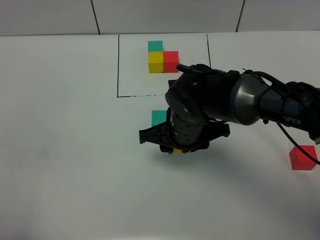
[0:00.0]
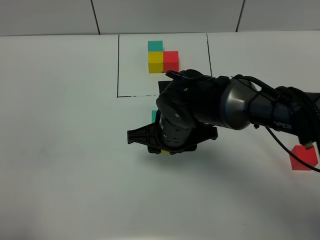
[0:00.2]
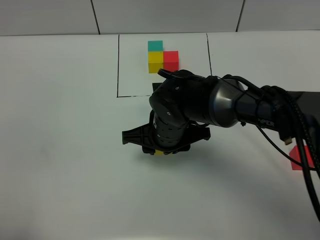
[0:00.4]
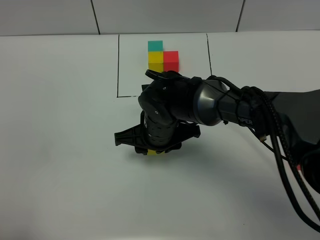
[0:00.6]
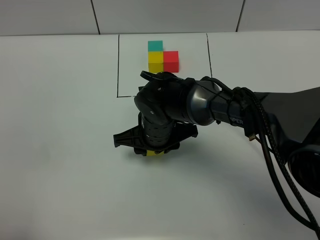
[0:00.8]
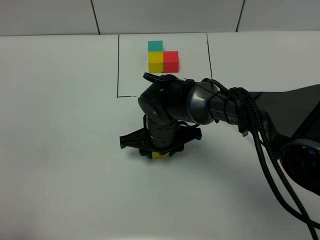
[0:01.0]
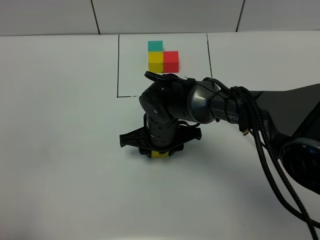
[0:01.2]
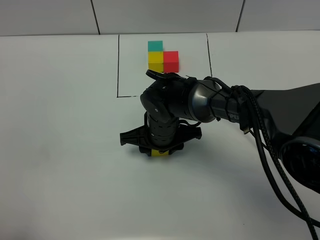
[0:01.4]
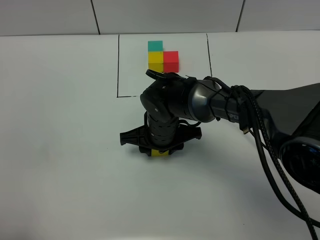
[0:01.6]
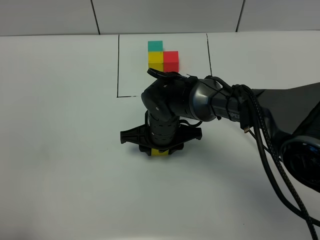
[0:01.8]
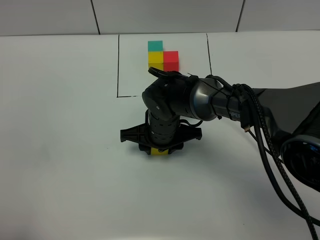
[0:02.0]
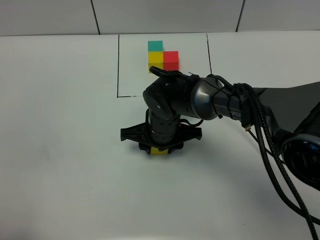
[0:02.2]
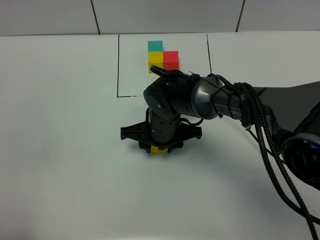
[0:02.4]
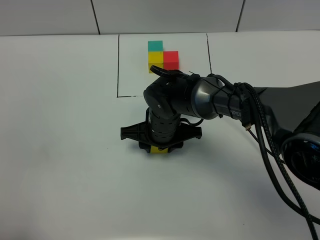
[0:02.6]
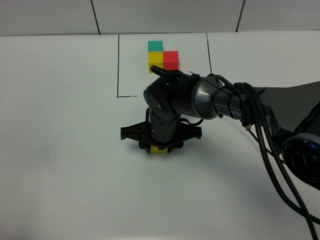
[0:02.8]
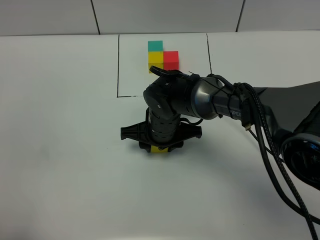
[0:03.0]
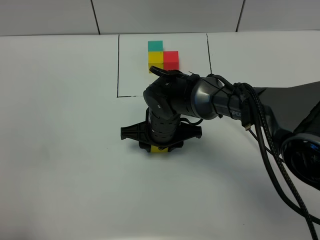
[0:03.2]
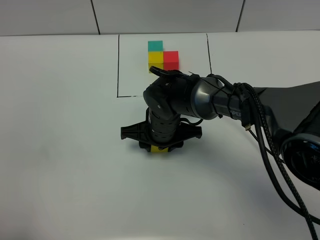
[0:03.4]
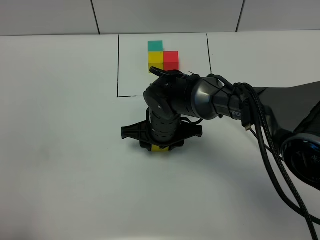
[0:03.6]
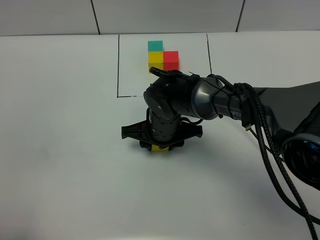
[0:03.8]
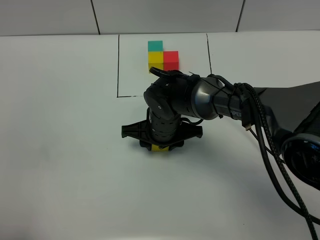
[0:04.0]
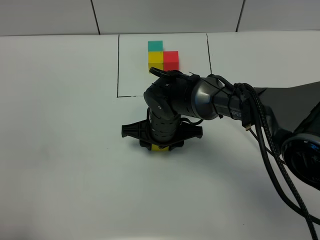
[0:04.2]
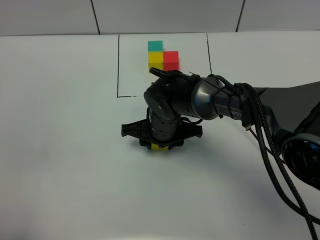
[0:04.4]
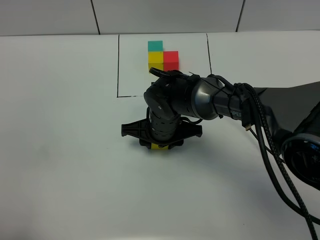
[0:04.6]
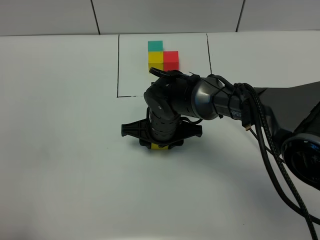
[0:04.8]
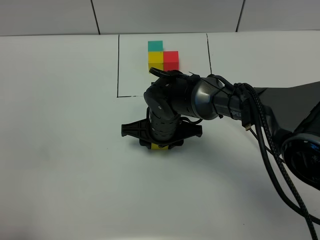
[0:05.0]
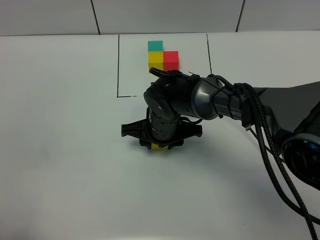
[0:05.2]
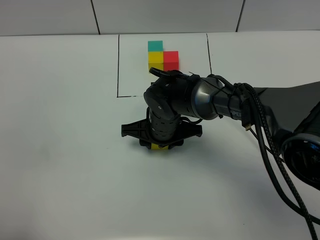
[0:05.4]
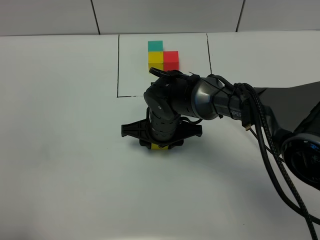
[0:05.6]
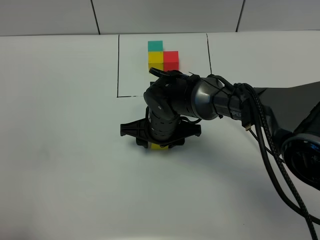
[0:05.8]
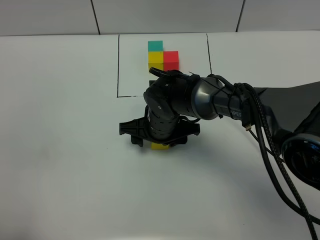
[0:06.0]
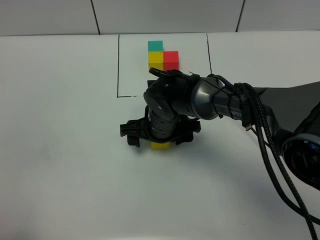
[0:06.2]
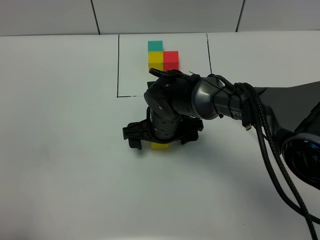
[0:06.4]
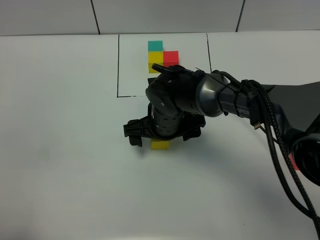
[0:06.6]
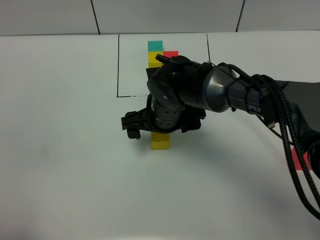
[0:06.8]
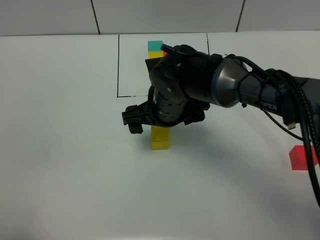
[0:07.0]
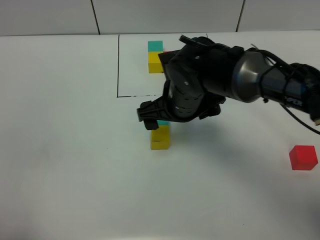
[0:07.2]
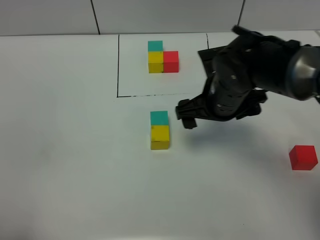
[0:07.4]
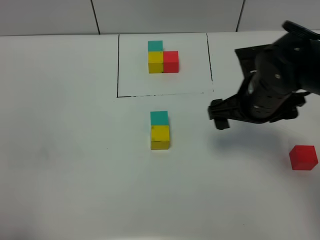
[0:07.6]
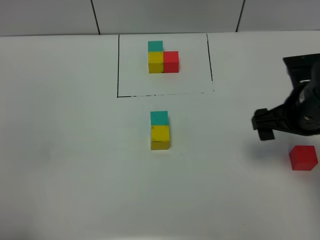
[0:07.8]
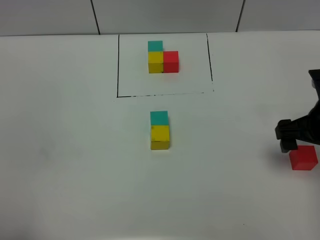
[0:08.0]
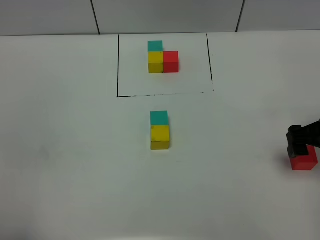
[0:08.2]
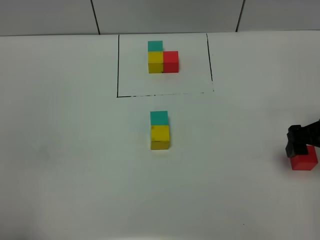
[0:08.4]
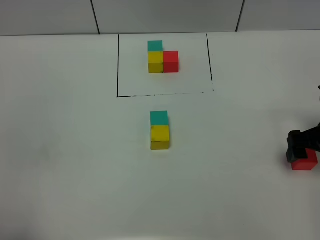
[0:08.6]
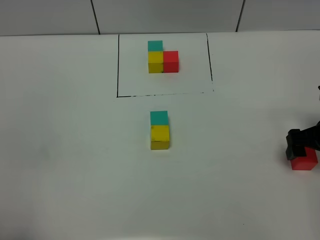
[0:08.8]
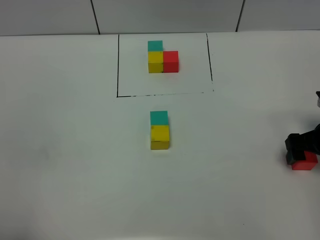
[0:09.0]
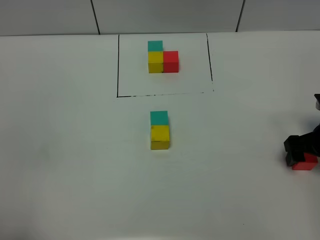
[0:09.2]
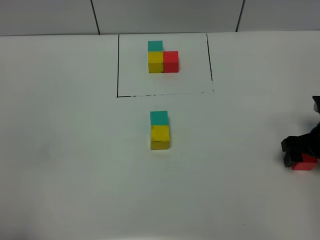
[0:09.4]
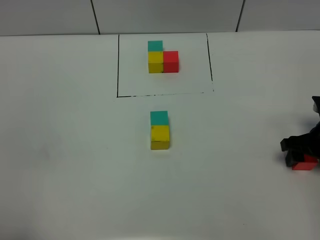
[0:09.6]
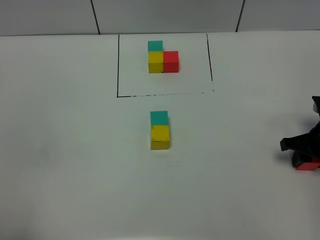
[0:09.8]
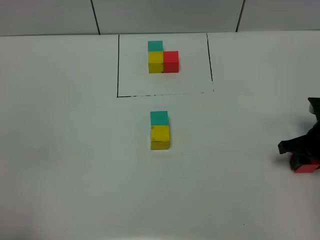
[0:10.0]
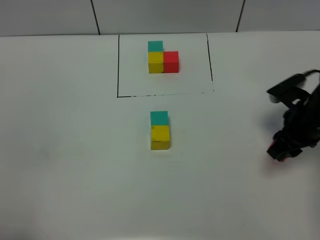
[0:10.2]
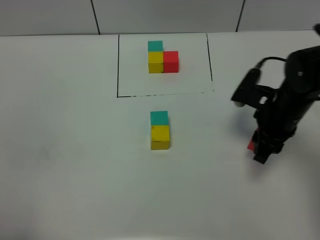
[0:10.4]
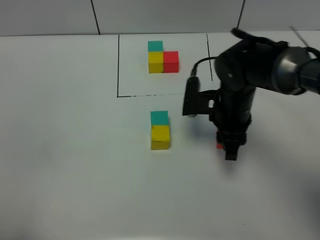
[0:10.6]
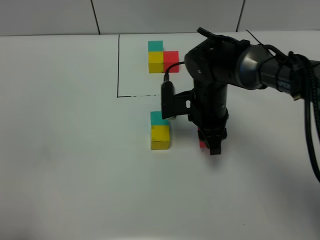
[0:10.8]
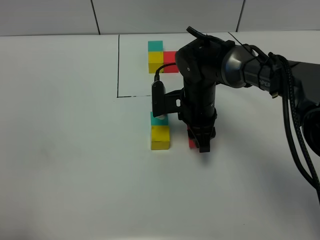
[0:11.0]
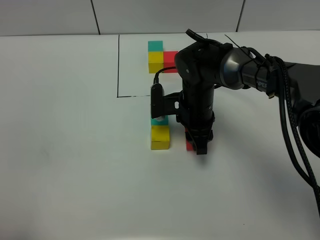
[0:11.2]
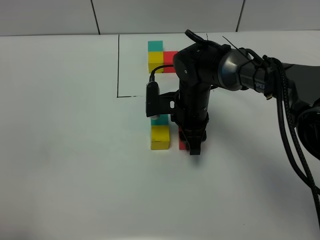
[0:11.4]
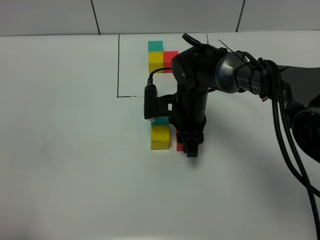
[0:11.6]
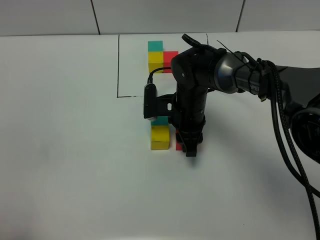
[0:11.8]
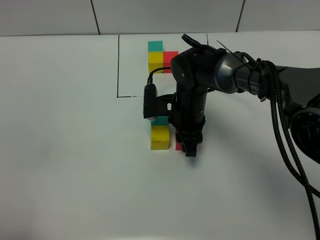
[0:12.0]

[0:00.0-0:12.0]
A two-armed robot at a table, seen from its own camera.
Task of the whole recording: According to the building block template in front, assemble the scattered blocks together.
Step, 0:00.0 to 0:06.0: Put the yellow build block on the behind of the green build block.
0:00.0 to 0:01.6: The right gripper shifts about 5 cm downward.
0:01.6 to 0:03.0: The two grippers keep their place.
0:03.0 to 0:04.4: Neither gripper changes place.
0:04.4 to 0:06.0: The right gripper opens its fingers.
0:06.0 to 0:07.6: The right gripper moves to the right and upward, roughly 20 cm, and opens.
0:07.6 to 0:09.0: The right gripper is displaced to the right and downward by approximately 15 cm.
0:09.0 to 0:10.4: The right gripper shifts roughly 15 cm to the left, and closes.
0:10.4 to 0:12.0: The right gripper travels to the left and downward by some 15 cm.

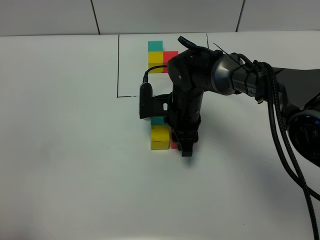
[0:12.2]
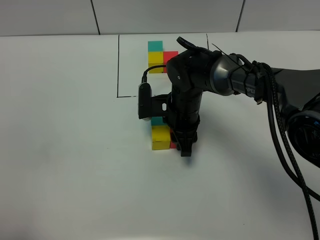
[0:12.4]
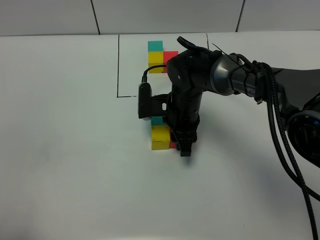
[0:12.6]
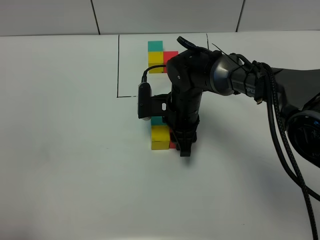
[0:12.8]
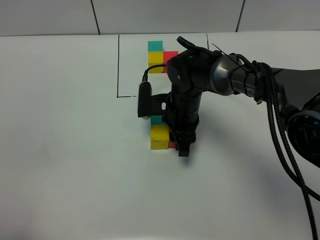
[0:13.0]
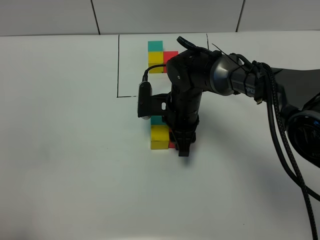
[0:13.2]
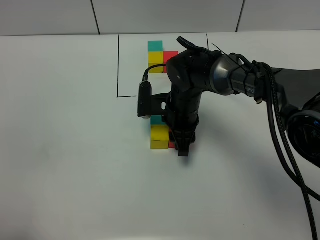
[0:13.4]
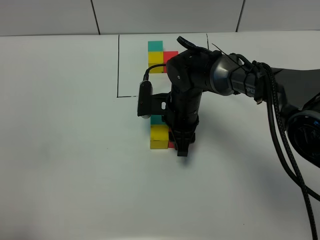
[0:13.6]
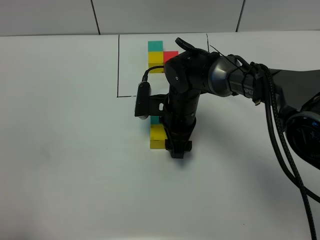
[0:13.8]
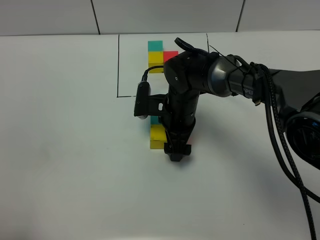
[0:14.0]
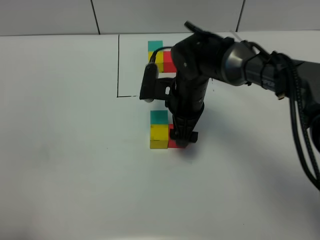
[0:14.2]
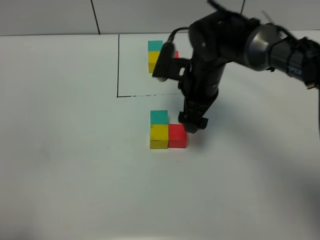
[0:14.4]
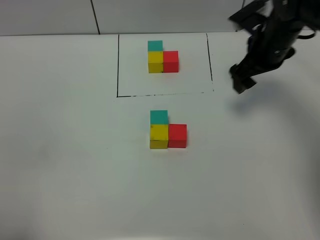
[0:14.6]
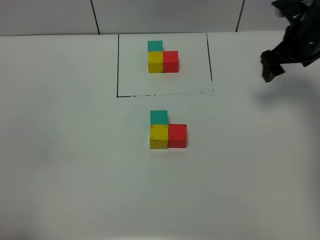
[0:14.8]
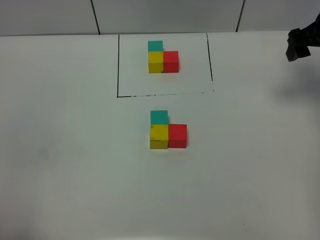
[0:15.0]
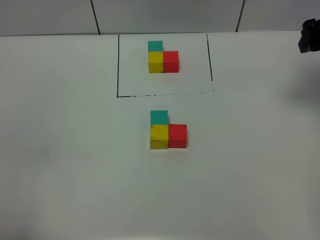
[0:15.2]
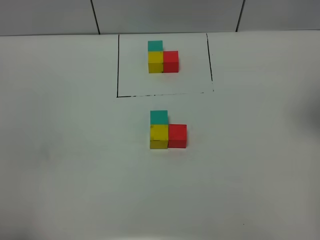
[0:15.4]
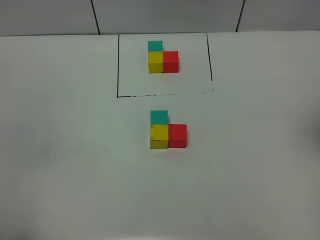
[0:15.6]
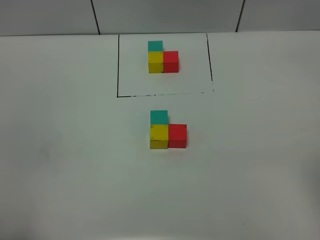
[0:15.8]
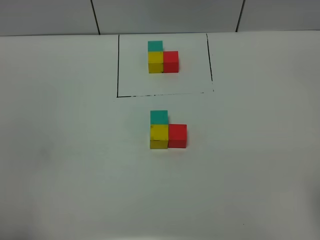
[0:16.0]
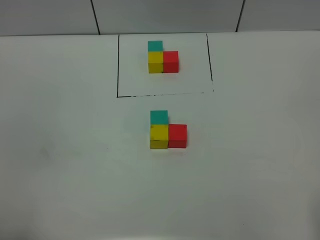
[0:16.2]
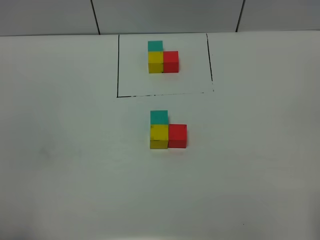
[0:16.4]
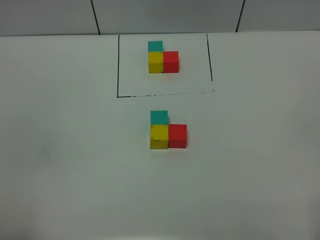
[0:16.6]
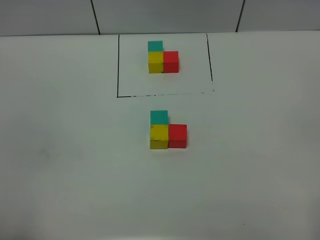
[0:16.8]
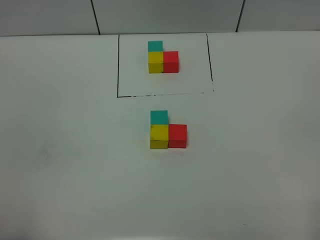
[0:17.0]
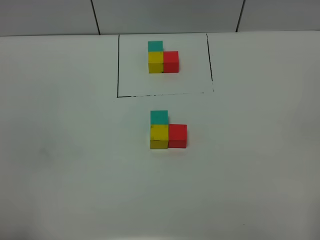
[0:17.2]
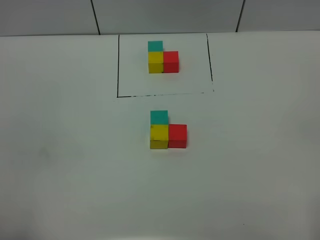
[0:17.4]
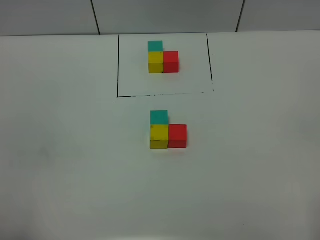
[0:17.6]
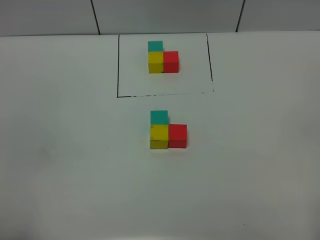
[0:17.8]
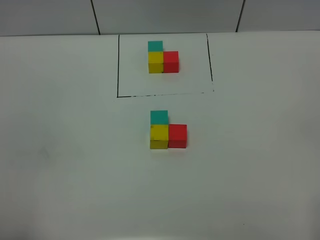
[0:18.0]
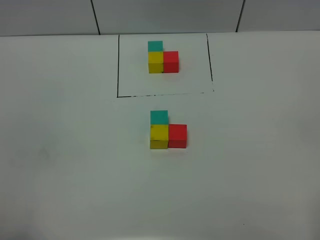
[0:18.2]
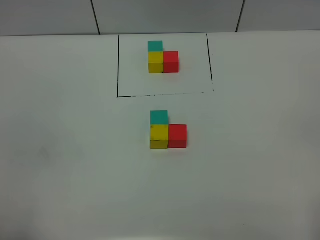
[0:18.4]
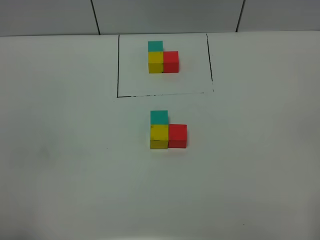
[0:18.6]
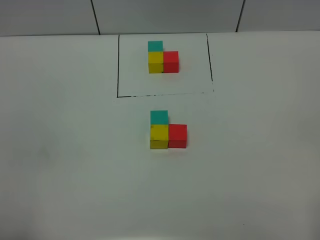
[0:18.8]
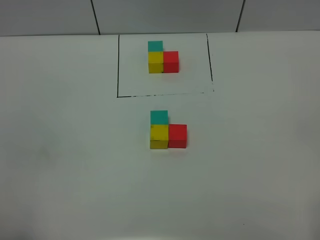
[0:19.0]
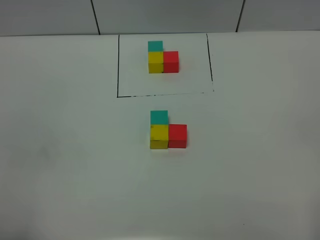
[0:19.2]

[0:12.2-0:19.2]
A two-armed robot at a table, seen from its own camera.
Task of the whole recording: According to the building block template in front, assemble the scattered blocks together.
0:12.2 to 0:13.6: Both grippers stay about where they are.
0:13.6 to 0:15.0: The right gripper heads to the right and upward, covering about 30 cm, and opens up.
0:15.0 to 0:16.4: The right gripper travels backward by some 40 cm.
0:17.8 to 0:19.2: Both grippers stay put.

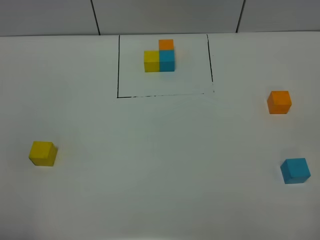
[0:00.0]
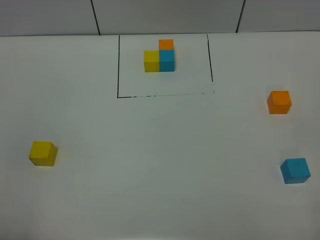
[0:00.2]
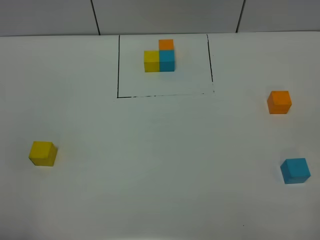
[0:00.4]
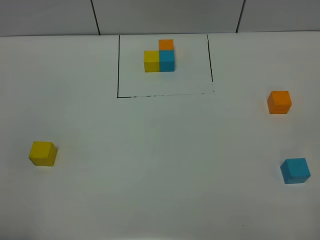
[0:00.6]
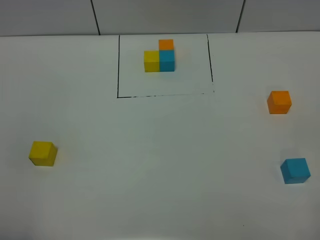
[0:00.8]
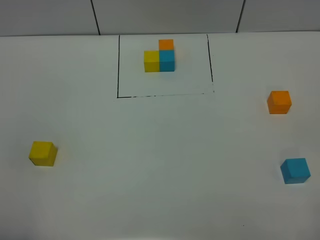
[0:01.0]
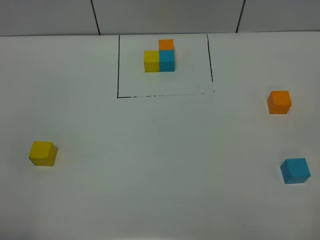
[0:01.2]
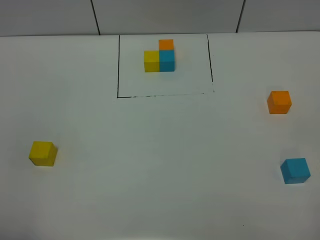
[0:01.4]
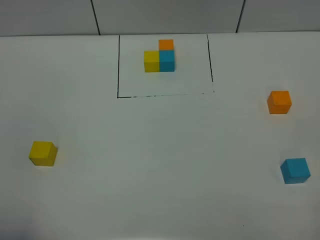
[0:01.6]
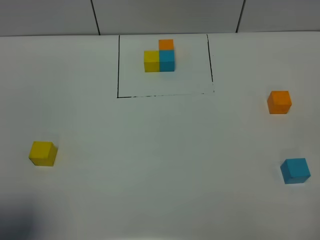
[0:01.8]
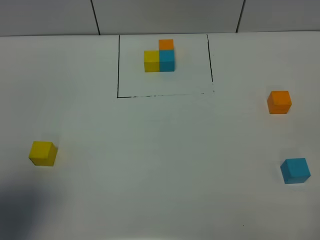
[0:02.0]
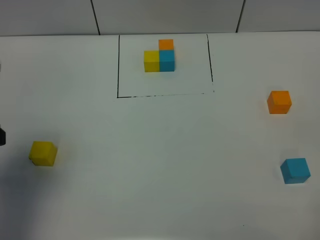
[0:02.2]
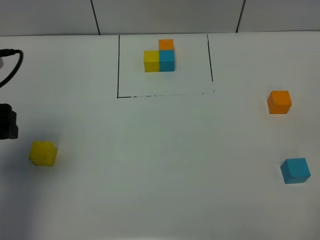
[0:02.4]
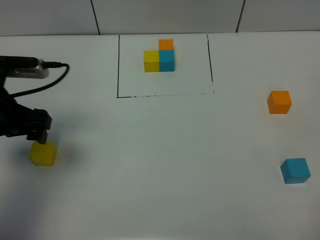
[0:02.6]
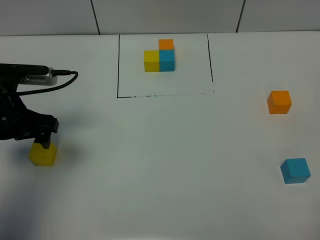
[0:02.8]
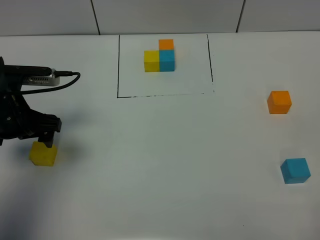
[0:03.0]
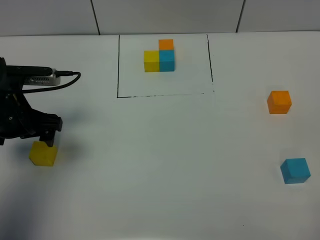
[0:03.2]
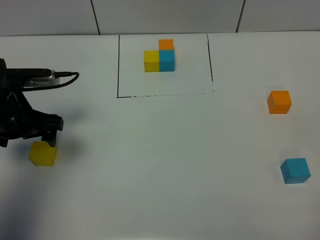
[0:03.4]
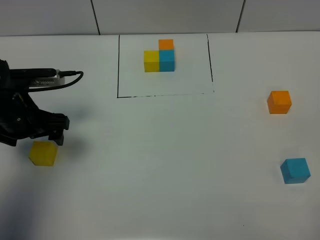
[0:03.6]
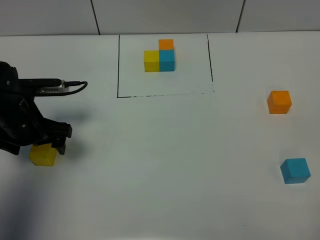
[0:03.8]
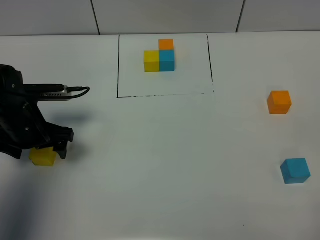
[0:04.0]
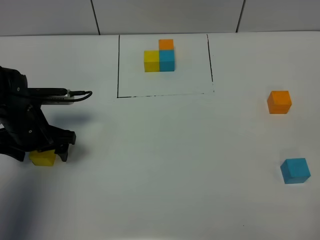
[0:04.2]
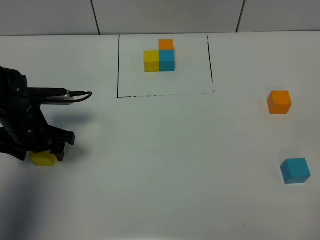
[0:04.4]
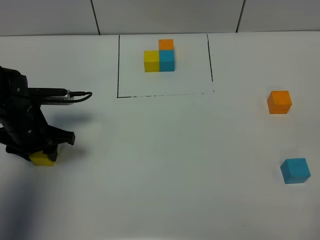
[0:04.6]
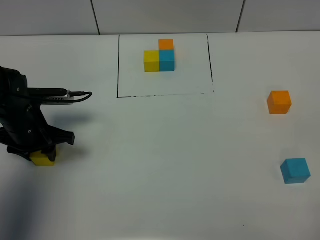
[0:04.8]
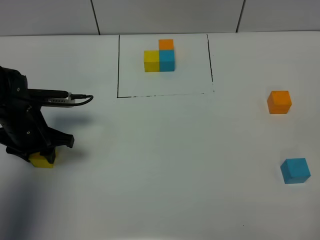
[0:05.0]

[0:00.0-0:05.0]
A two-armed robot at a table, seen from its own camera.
Task of the whole recording: According to the building block template in front, assemble the scattered blocks together.
0:01.6 to 0:03.4: The left gripper travels forward by roughly 30 cm.
0:03.4 to 0:05.0: The left gripper goes approximately 5 cm downward, and closes up.
